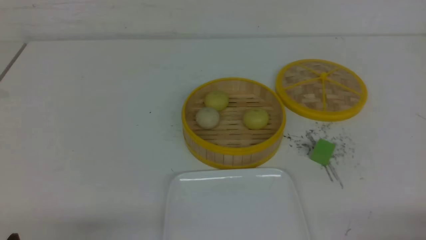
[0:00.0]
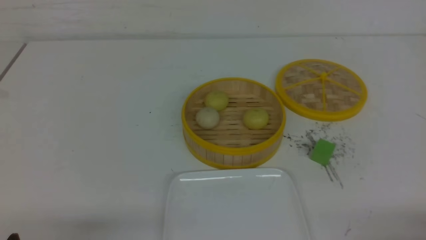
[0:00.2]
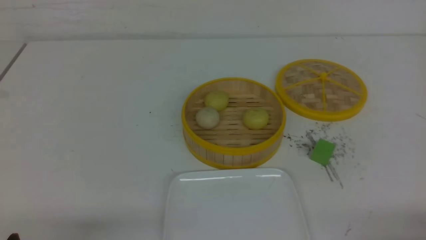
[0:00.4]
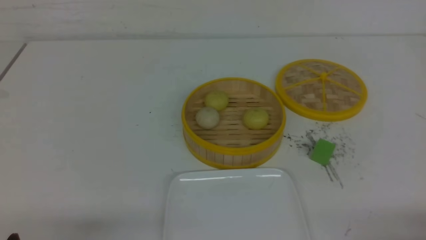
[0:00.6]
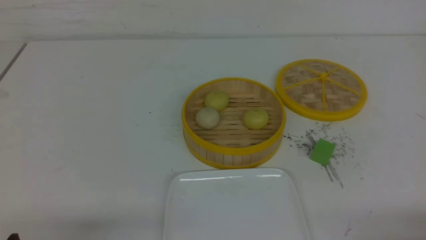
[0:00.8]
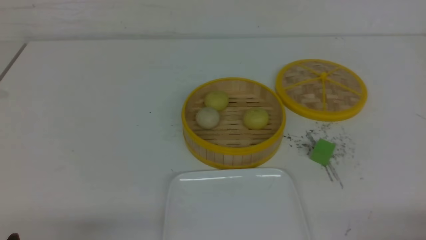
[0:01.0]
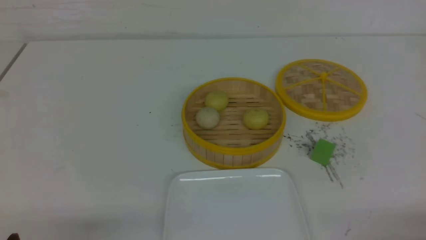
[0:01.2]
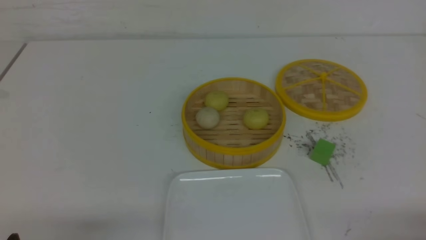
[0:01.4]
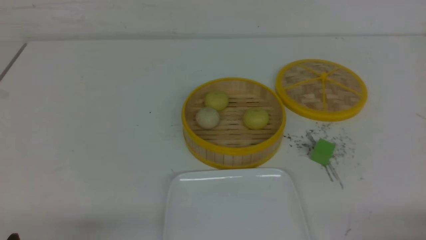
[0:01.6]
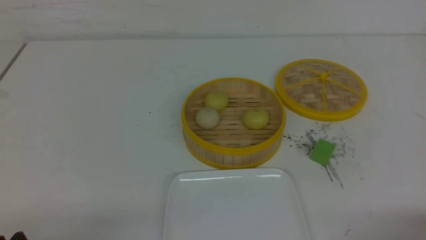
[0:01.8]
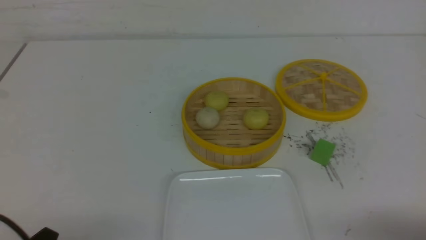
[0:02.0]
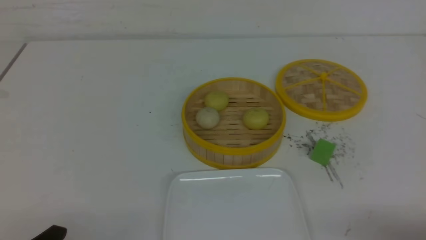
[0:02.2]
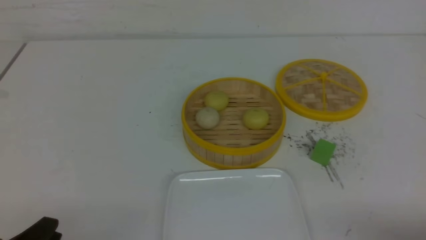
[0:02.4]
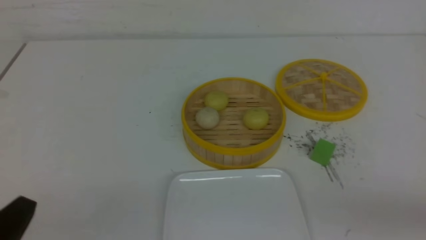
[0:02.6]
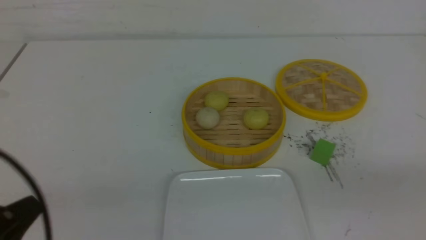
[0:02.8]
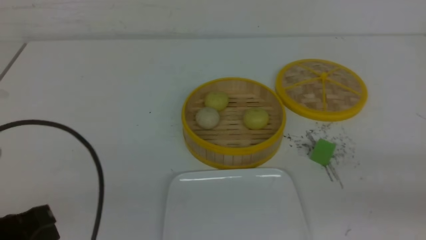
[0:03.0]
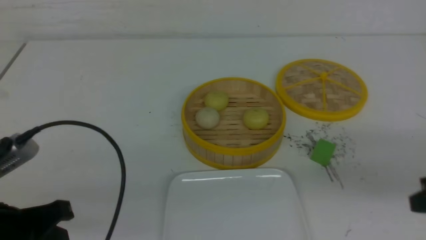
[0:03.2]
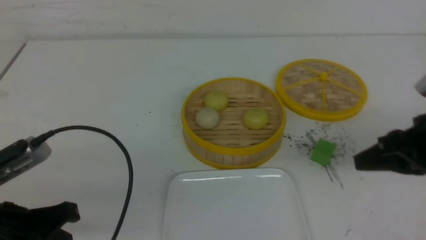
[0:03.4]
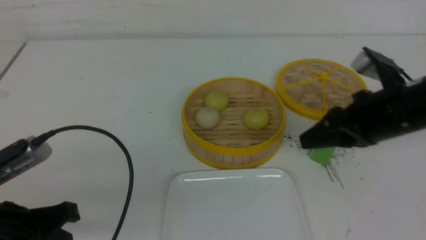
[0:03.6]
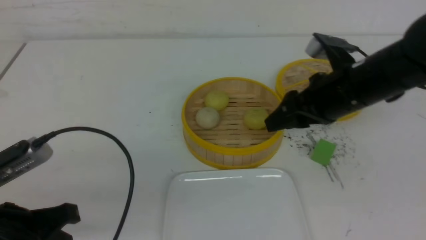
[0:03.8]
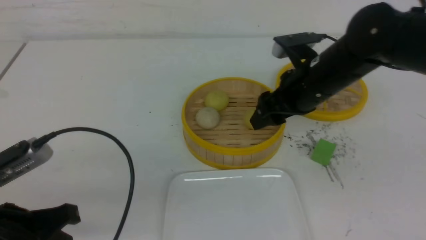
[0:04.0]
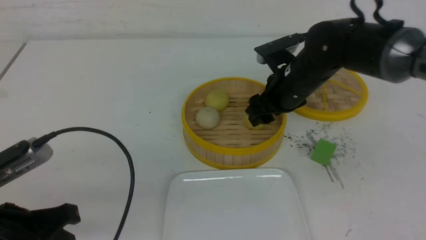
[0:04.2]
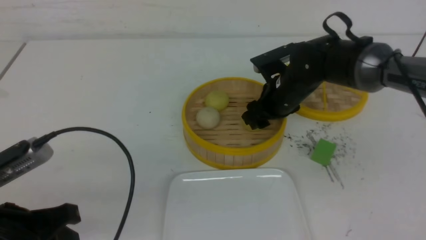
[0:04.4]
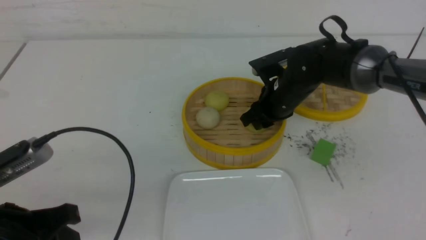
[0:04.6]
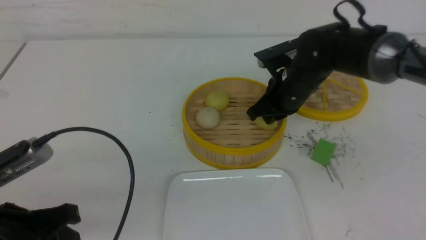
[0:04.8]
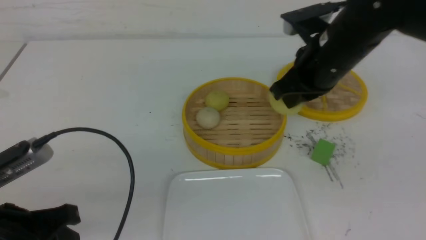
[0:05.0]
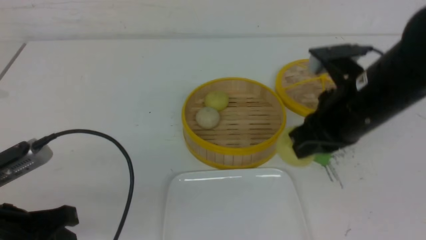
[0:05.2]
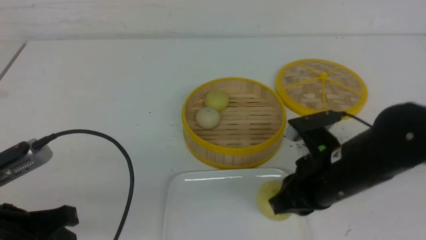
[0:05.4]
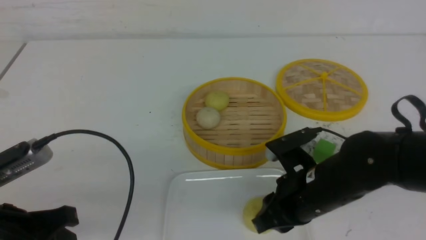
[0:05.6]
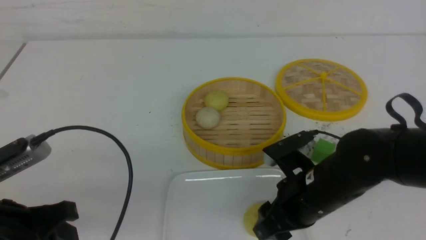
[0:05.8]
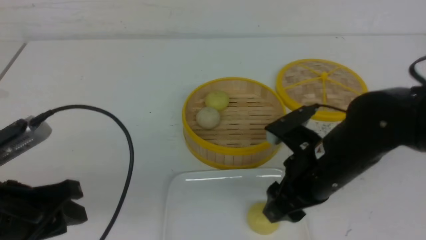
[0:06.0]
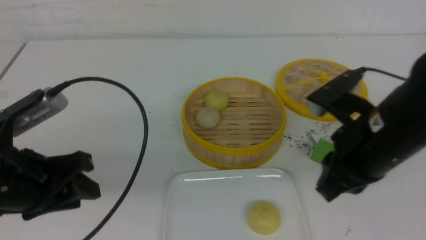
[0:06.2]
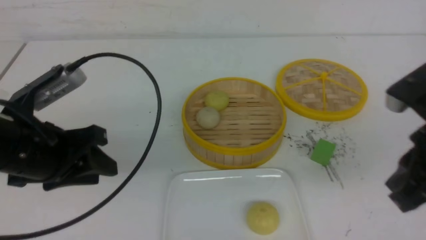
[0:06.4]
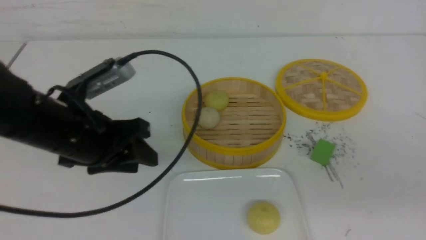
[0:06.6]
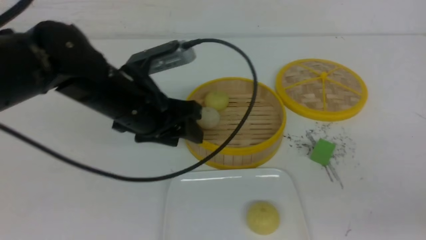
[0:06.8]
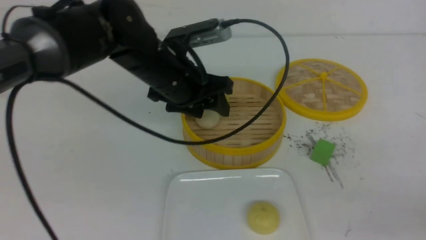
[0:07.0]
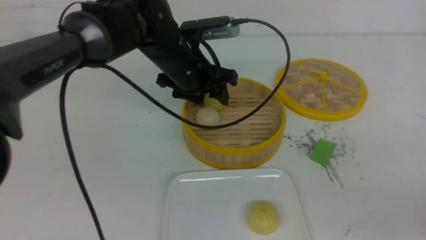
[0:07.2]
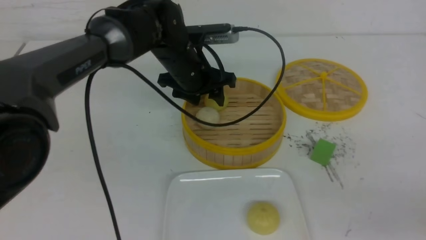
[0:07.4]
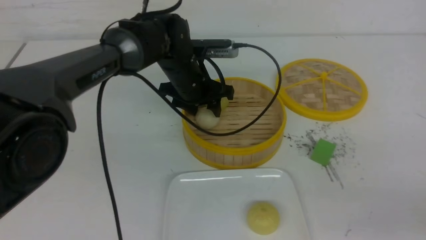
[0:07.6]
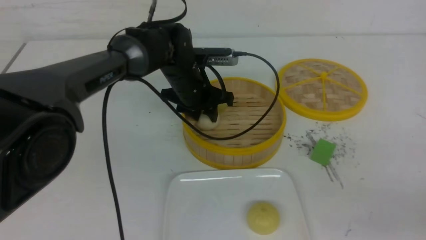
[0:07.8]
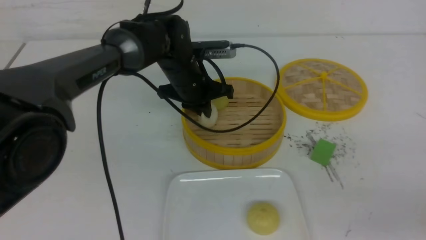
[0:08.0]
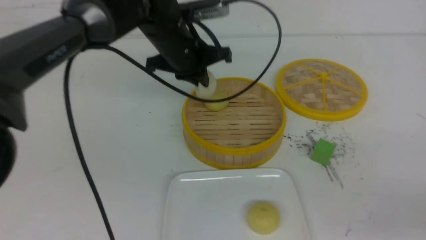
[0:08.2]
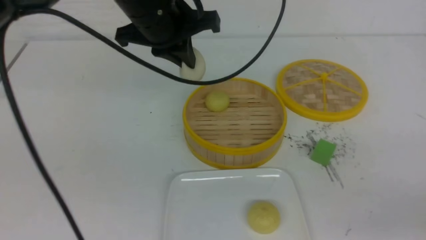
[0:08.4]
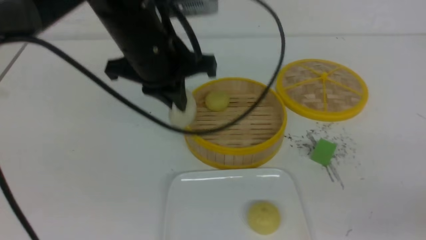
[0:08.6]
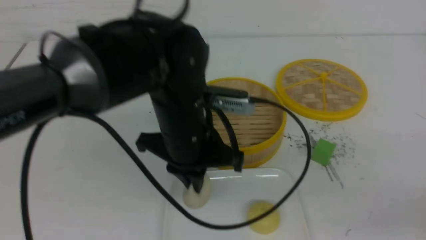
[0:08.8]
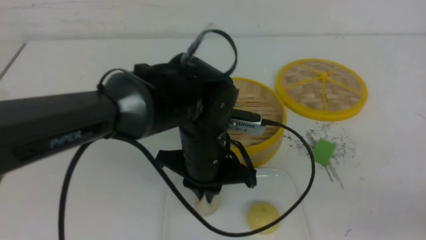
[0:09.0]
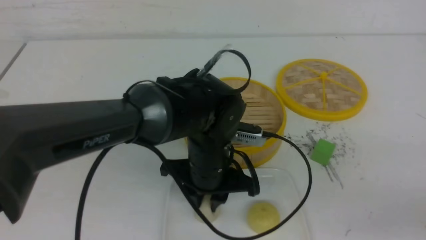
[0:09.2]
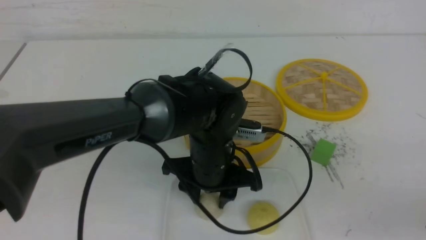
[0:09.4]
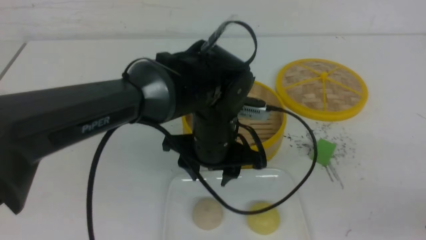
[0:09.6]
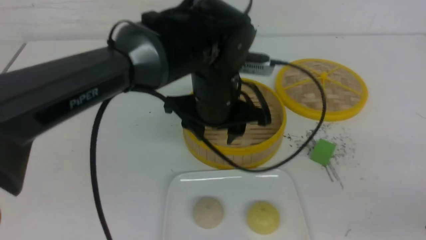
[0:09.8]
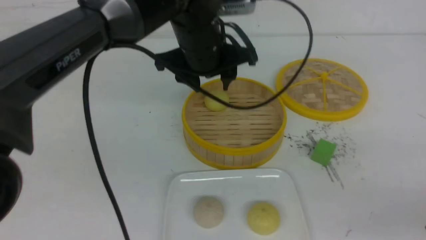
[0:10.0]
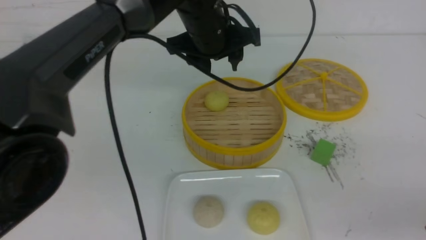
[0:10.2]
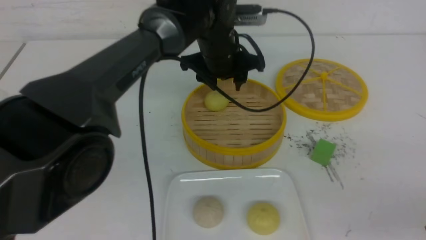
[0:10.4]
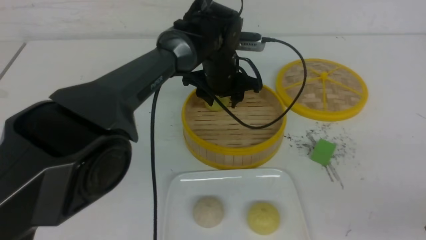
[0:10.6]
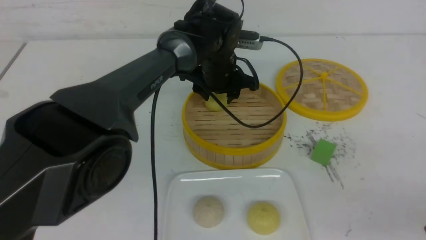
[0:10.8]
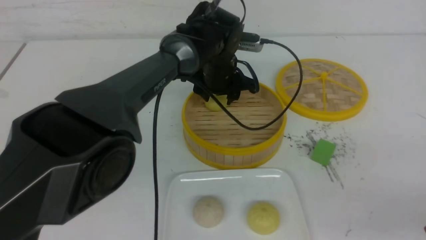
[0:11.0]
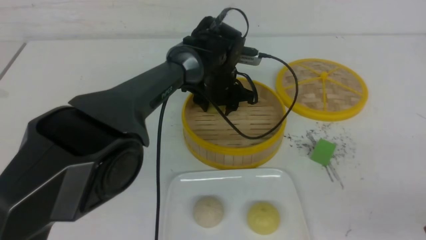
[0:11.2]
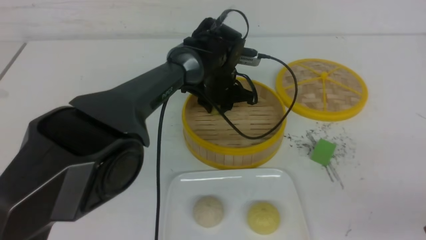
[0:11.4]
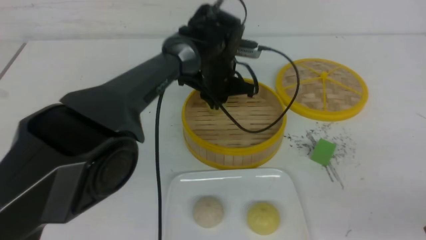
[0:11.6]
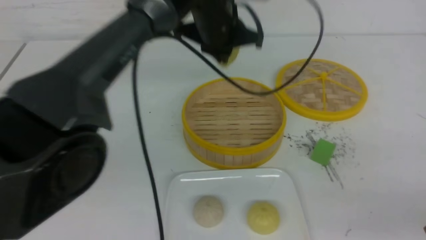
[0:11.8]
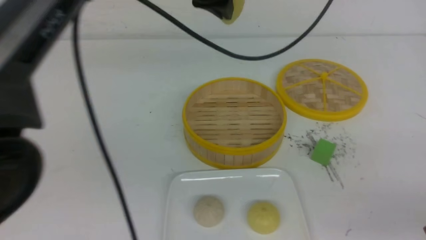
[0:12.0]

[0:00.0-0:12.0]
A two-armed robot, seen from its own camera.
Step, 0:00.0 to 0:04.6: use the right arm to grab the steamed stuffed bun that is closest to it.
Step, 0:05.0 to 0:05.8: use the right arm to put the steamed stuffed bun into the plate.
Step, 0:06.0 to 0:08.0: use the left arm to grab the steamed stuffed bun that is closest to it.
Step, 0:08.2 to 0:09.2: use the left arm to put the steamed stuffed bun into the plate.
Step, 0:09.4 to 0:11.4: use the left arm to grab the steamed stuffed bun that is closest to it.
0:00.0 to 0:01.6: Both grippers stay put.
0:01.6 to 0:03.0: The left gripper shifts some 10 cm upward, and closes up.
0:03.0 to 0:04.4: The right gripper goes some 35 cm forward and to the left, and opens. Meanwhile the left gripper opens.
0:04.4 to 0:06.0: The right gripper travels backward by some 20 cm, and closes, then opens again.
0:06.0 to 0:07.6: The right gripper heads to the right and backward, covering roughly 20 cm, and closes up. Meanwhile the left gripper shifts roughly 35 cm forward and to the right.
0:07.6 to 0:09.0: The left gripper heads backward, covering approximately 15 cm, and closes up.
0:09.0 to 0:10.4: The left gripper travels forward by approximately 15 cm, and opens its fingers.
0:10.4 to 0:12.0: The left gripper shifts about 15 cm upward and backward, and closes.

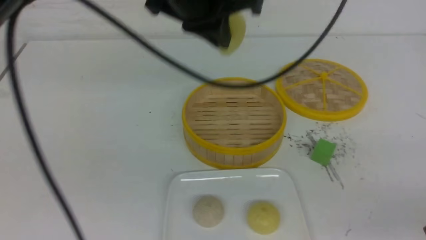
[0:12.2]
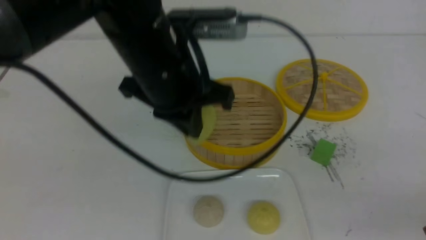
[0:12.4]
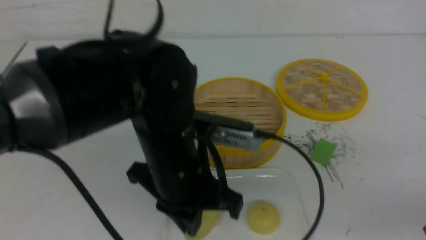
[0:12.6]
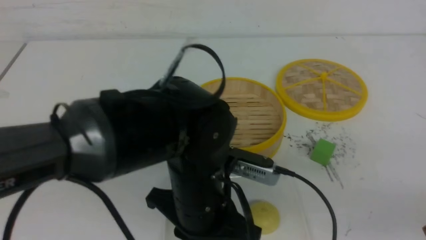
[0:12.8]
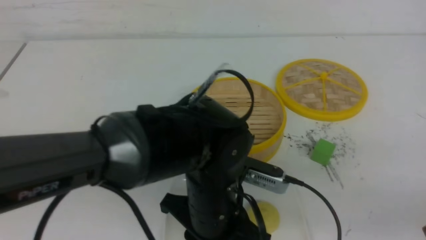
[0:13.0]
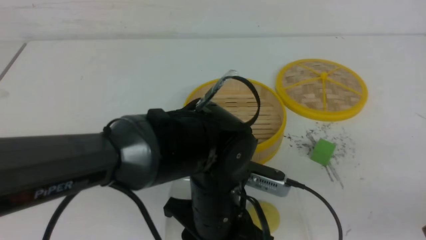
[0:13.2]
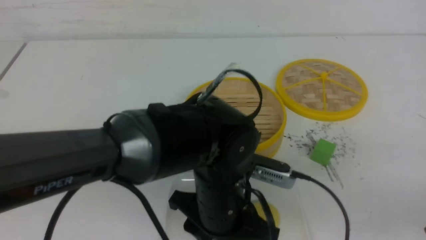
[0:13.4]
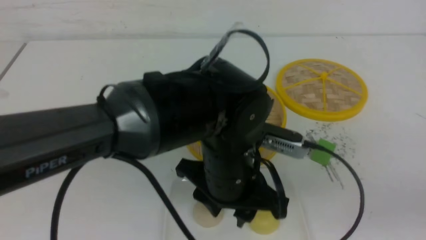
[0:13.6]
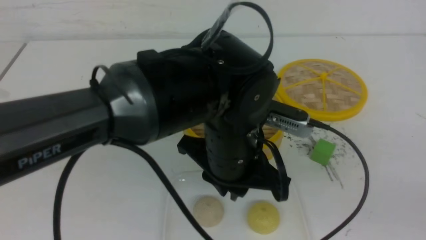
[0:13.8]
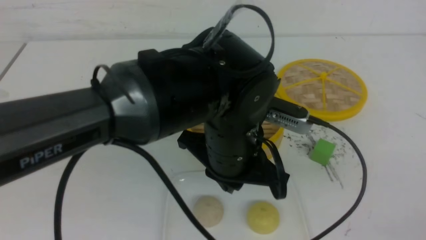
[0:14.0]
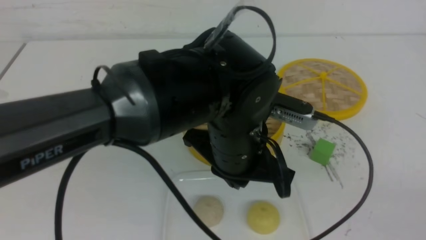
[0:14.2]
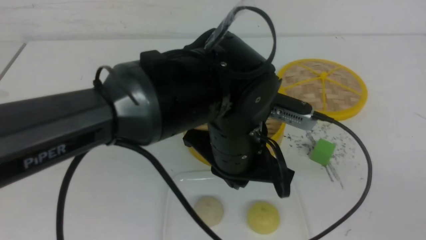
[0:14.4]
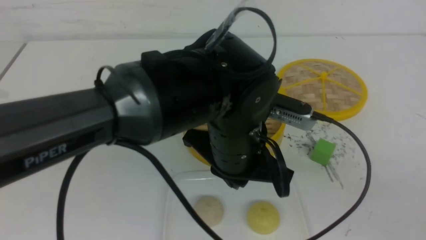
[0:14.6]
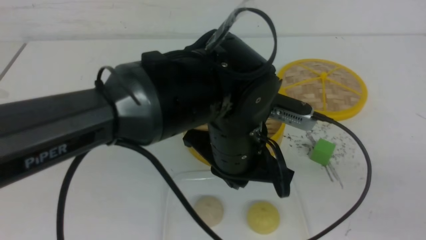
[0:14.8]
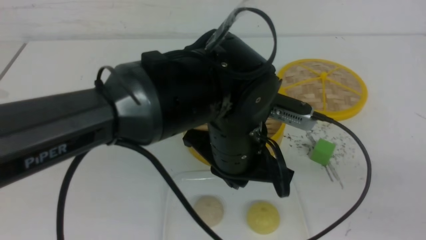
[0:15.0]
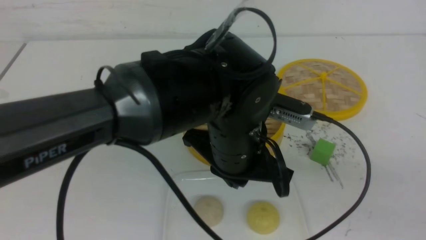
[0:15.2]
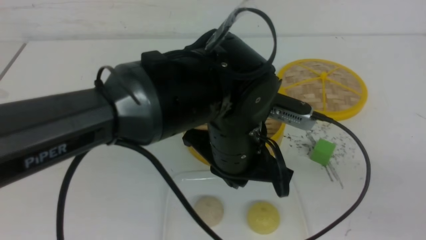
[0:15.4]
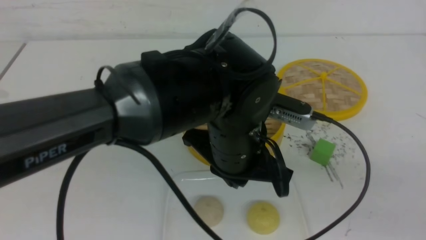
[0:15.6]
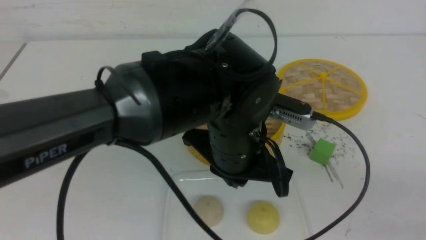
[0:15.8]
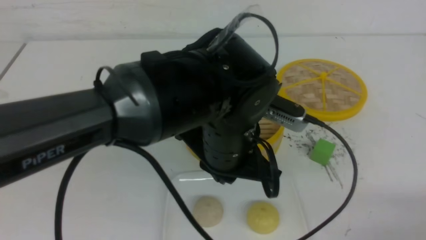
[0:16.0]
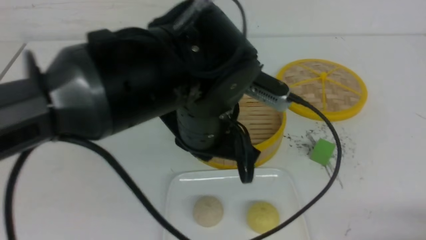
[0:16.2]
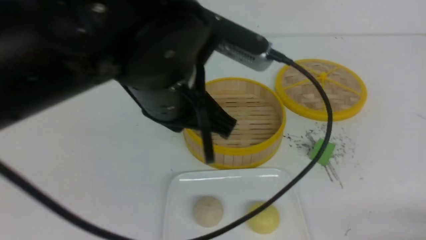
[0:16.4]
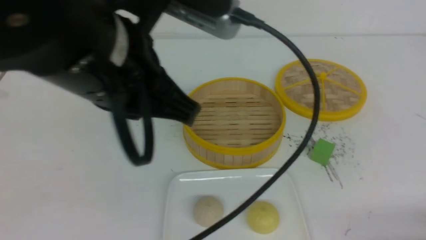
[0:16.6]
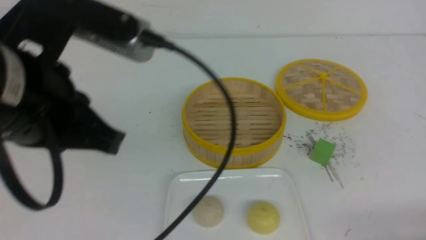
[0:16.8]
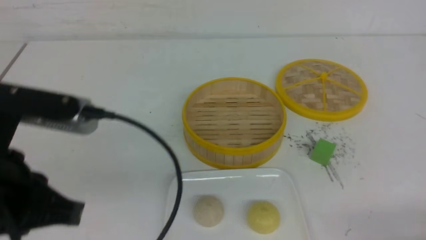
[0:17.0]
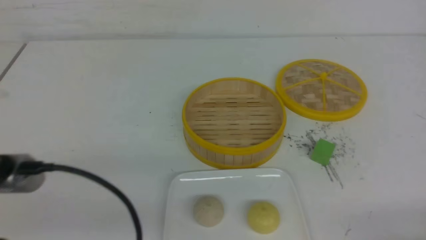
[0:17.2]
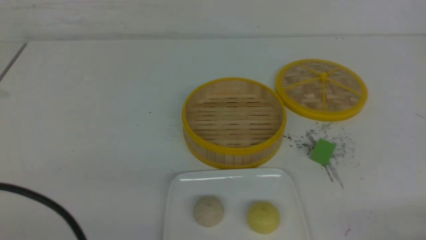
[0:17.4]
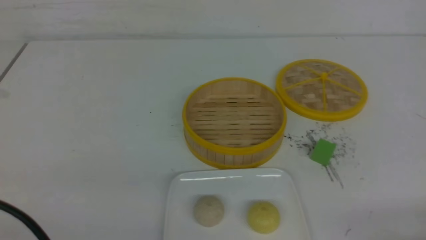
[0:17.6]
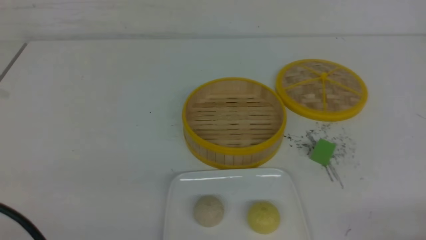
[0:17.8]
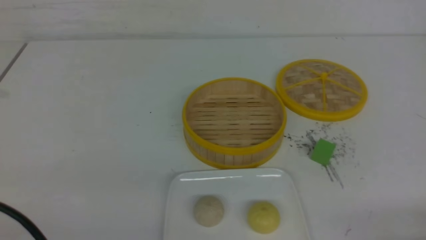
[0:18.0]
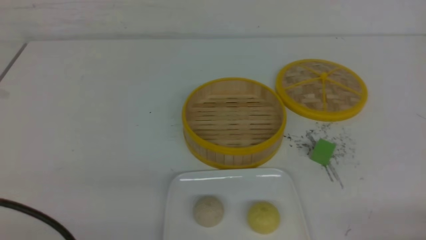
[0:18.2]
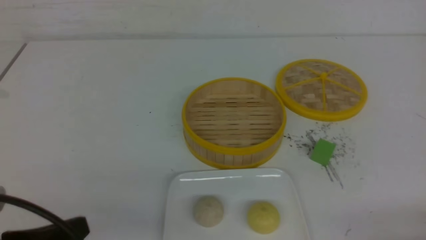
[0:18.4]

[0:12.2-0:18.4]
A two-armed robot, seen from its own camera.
Step, 0:12.2 to 0:13.4: use the left arm to put the steamed stuffed bun into the plate.
0:12.2 to 0:13.8: The left gripper goes some 15 cm downward, backward and to the right, and opens and closes again. The right gripper heads upward and backward, covering approximately 10 cm.
0:13.8 to 0:15.4: The right gripper goes roughly 5 cm downward.
0:15.4 to 0:16.8: The left gripper heads to the left, upward and backward, covering about 20 cm, while the right gripper moves downward, about 10 cm.
0:16.8 to 0:18.4: The left gripper moves downward, backward and to the left, some 15 cm.
